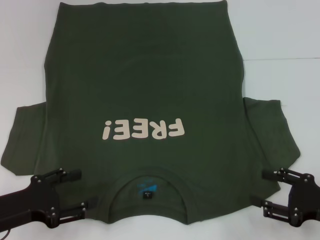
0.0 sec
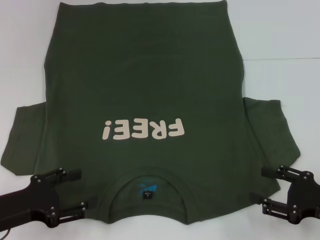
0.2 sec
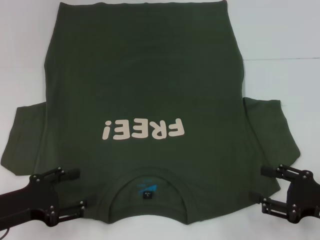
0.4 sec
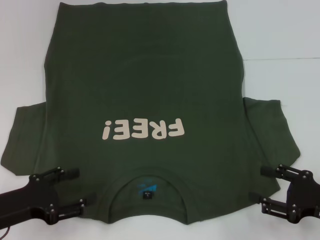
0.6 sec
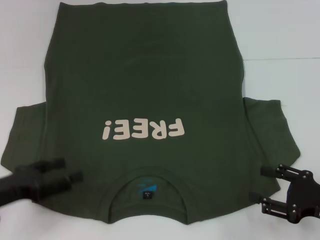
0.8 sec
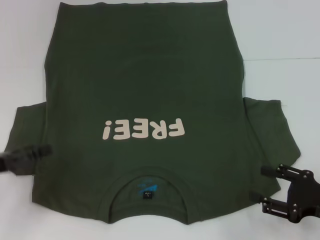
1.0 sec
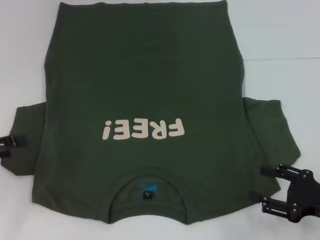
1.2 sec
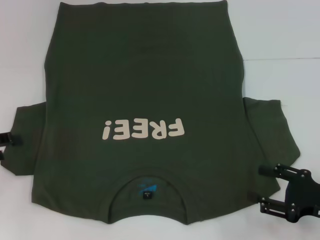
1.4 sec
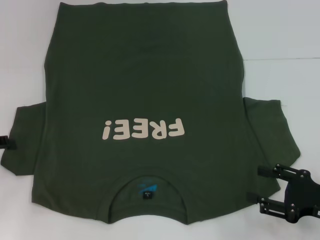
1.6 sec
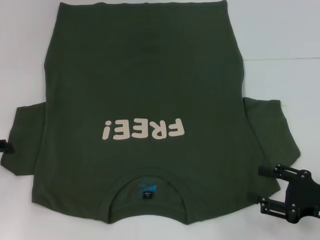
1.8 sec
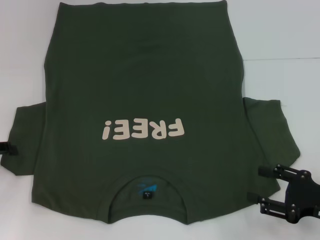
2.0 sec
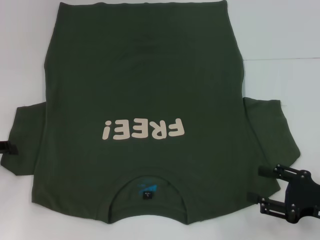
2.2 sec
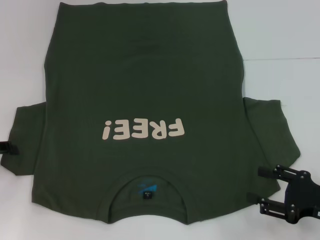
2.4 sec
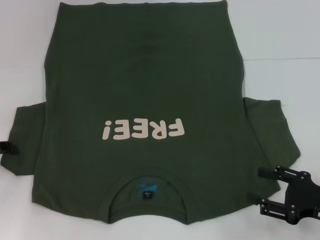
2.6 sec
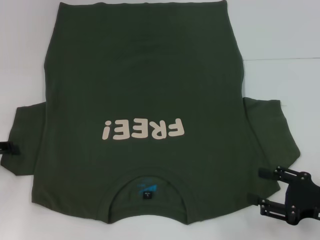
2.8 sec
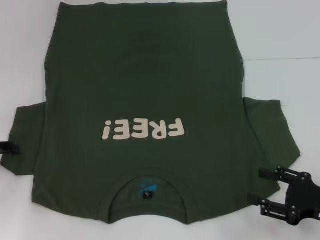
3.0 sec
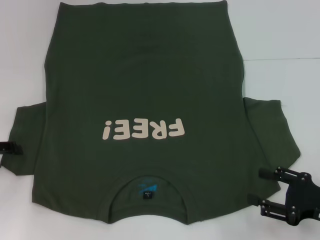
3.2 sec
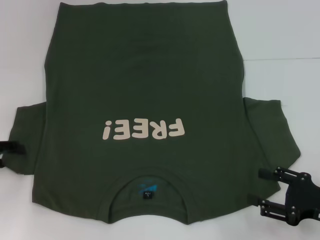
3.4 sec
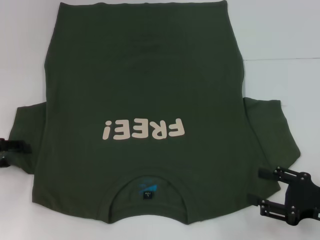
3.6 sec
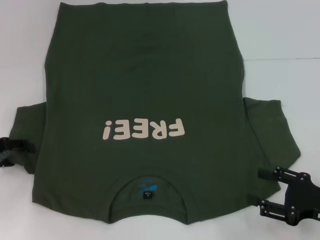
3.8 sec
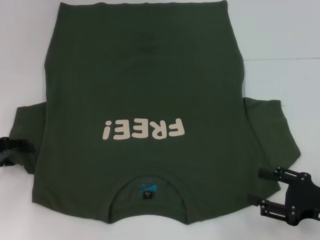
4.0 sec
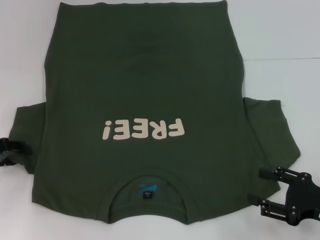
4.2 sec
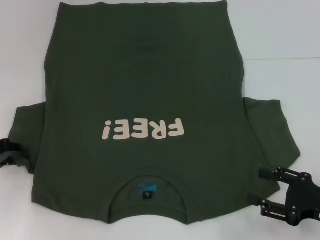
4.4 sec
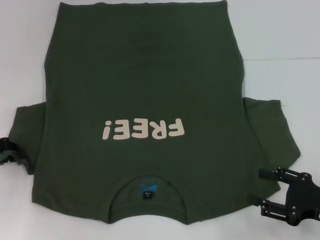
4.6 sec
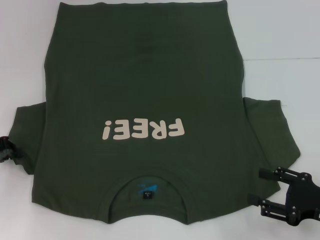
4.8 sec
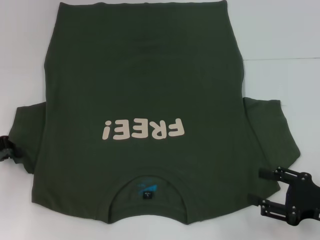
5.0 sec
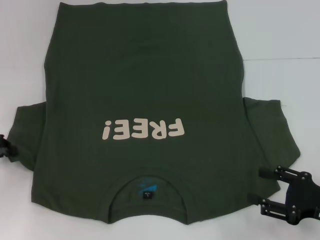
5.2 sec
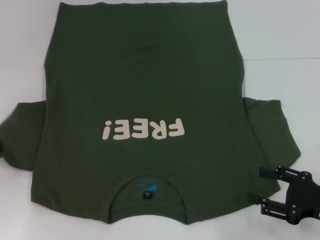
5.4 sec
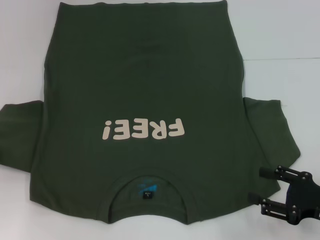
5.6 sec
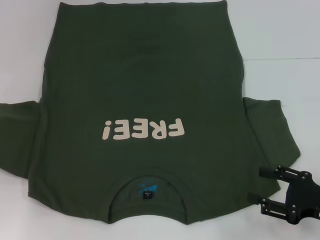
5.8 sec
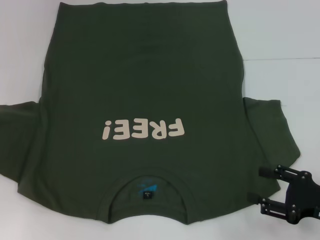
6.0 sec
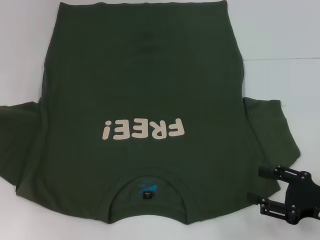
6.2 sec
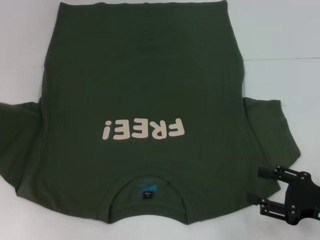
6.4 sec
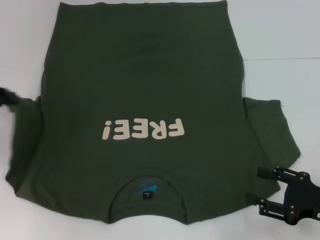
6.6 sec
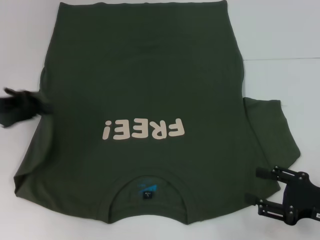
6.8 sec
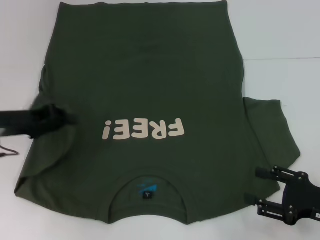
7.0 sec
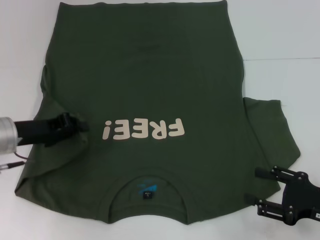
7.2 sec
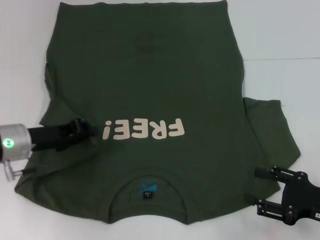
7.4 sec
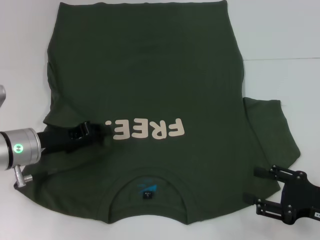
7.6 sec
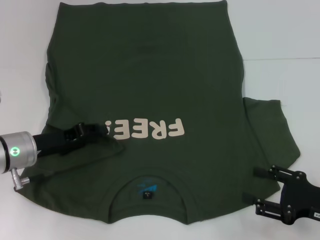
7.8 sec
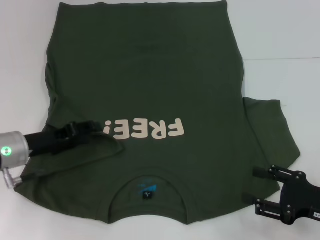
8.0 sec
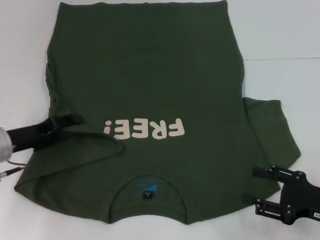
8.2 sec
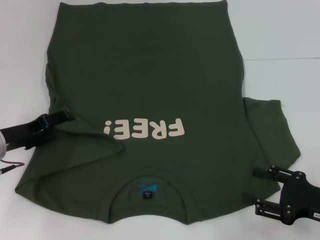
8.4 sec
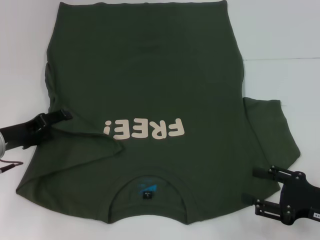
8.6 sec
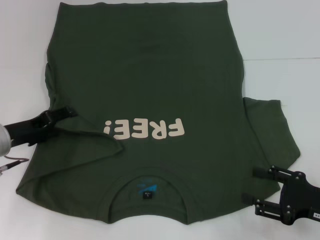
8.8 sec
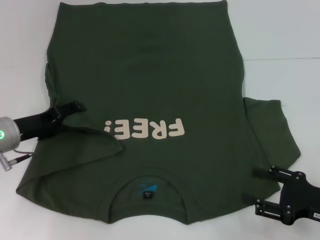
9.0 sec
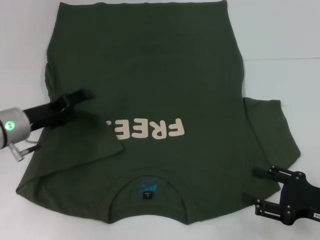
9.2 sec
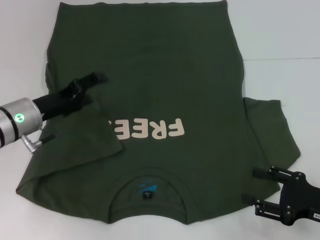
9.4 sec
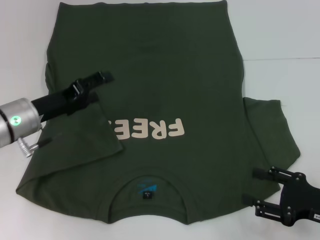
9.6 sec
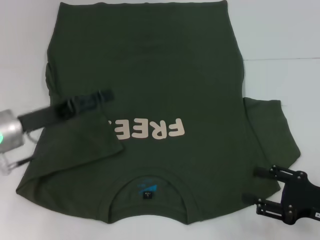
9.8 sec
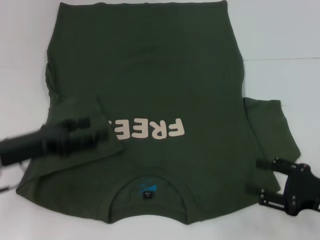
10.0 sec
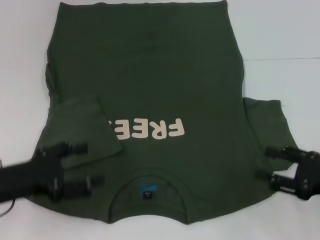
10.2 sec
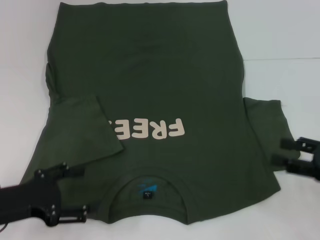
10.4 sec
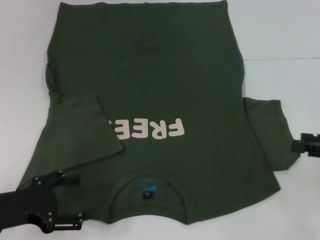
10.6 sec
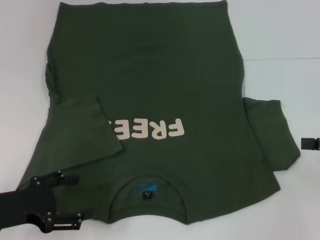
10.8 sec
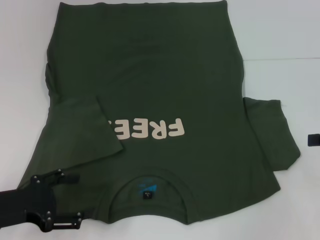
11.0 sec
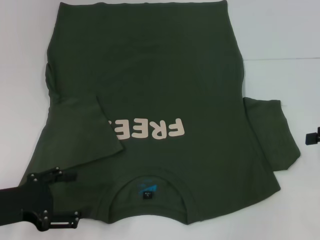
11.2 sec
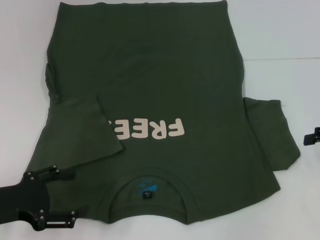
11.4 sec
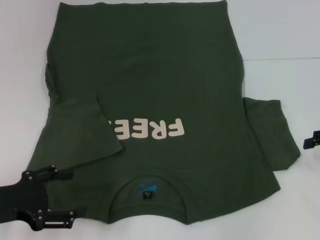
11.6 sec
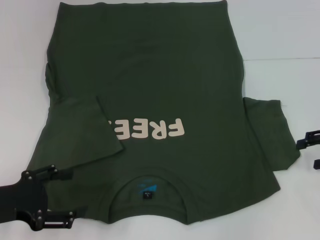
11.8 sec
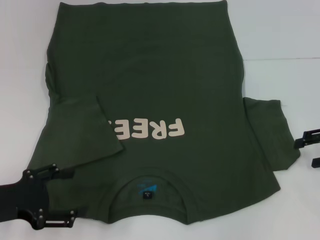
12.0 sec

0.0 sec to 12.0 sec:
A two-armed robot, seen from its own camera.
Step, 0.0 sec to 9.4 sec: Fold the bottom left sleeve with your left hand.
0.0 sec to 1.6 sec: The left gripper heads to the left, forward and upward, covering some 15 cm.
1.6 sec to 3.0 sec: The grippers stay close to where they were, moving slightly.
4.4 sec to 6.0 sec: The left gripper travels upward and to the left by some 10 cm, and closes.
6.0 sec to 7.6 sec: The left gripper is displaced to the right and downward by about 20 cm.
7.6 sec to 9.0 sec: The left gripper opens.
9.0 sec to 10.4 sec: The left gripper shifts approximately 10 cm backward, while the right gripper travels upward by roughly 5 cm.
10.4 sec to 12.0 sec: The right gripper heads forward, covering roughly 10 cm.

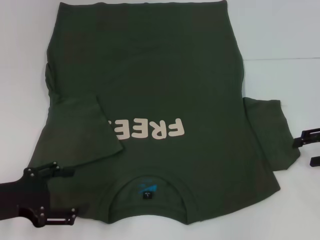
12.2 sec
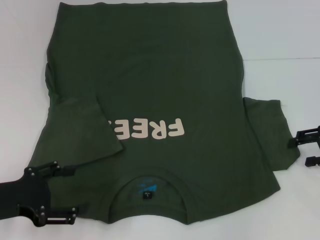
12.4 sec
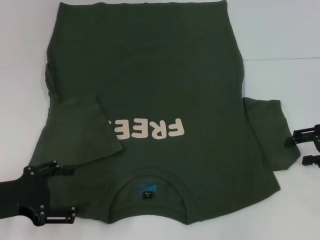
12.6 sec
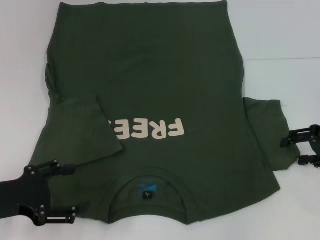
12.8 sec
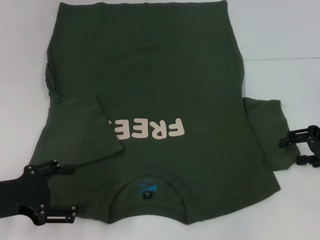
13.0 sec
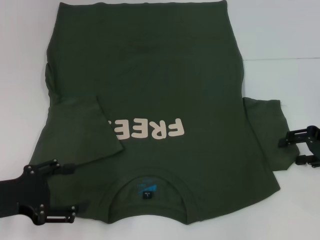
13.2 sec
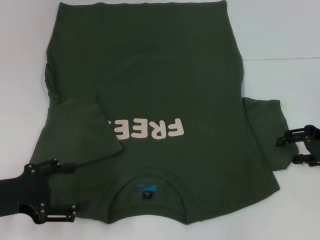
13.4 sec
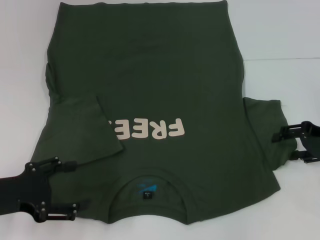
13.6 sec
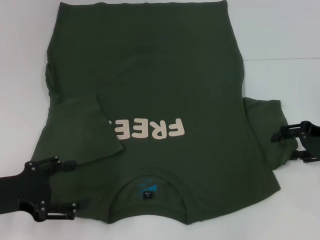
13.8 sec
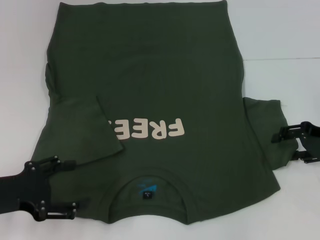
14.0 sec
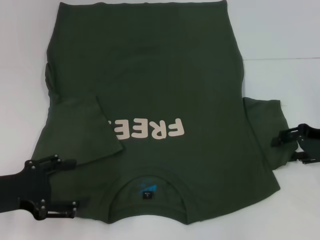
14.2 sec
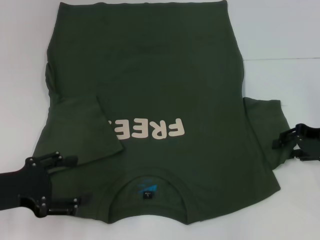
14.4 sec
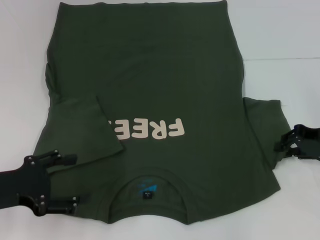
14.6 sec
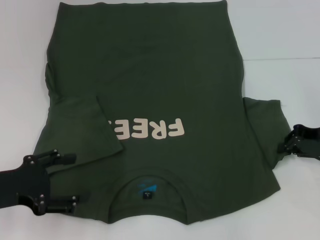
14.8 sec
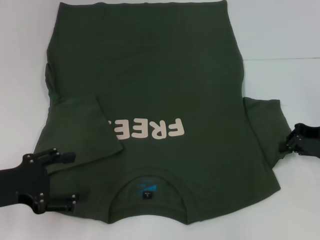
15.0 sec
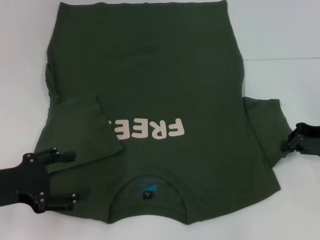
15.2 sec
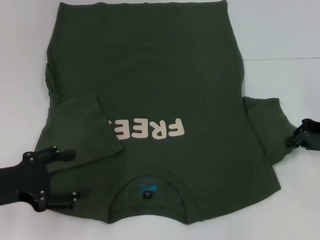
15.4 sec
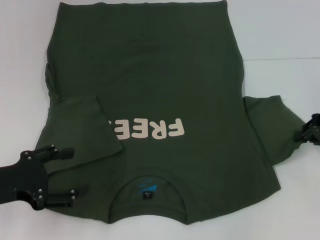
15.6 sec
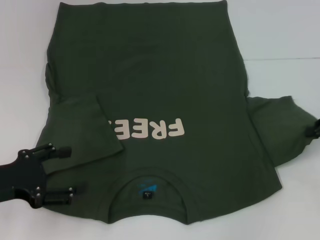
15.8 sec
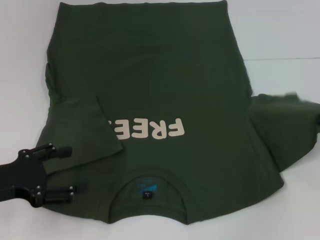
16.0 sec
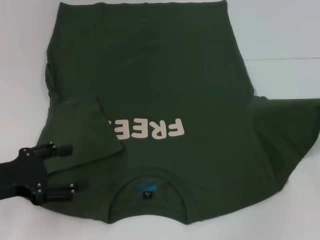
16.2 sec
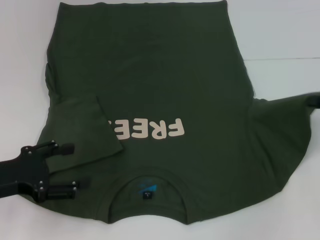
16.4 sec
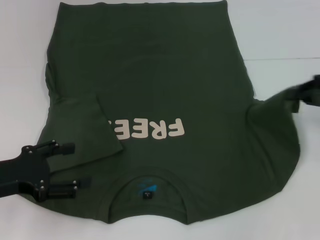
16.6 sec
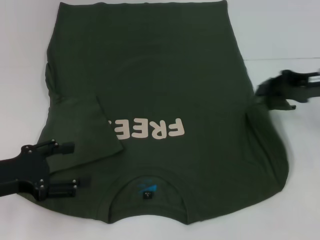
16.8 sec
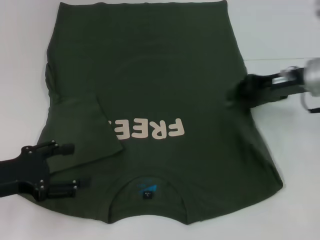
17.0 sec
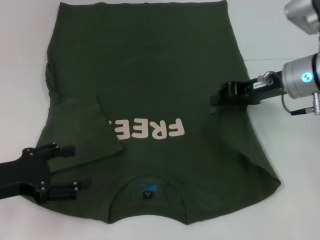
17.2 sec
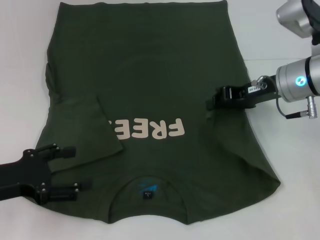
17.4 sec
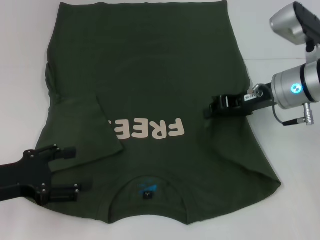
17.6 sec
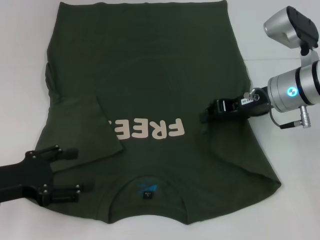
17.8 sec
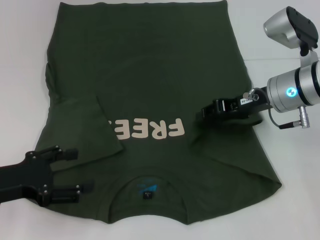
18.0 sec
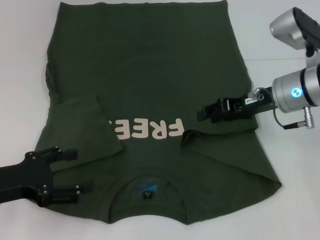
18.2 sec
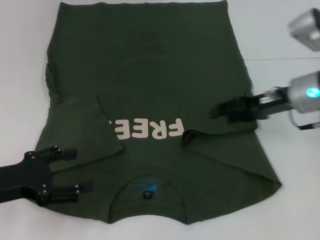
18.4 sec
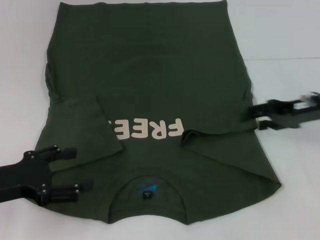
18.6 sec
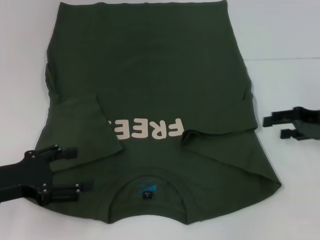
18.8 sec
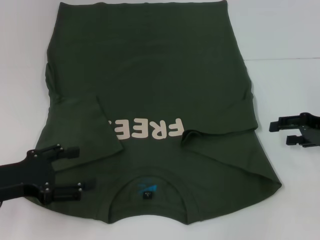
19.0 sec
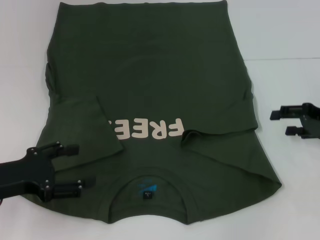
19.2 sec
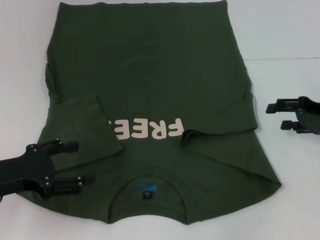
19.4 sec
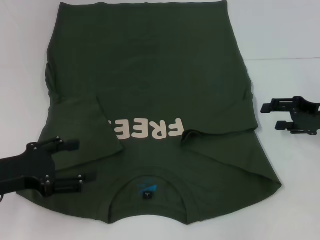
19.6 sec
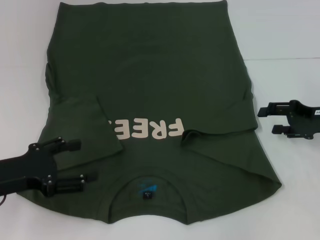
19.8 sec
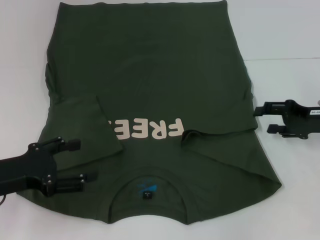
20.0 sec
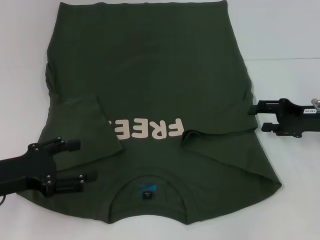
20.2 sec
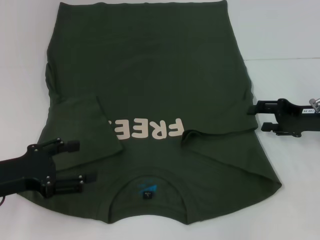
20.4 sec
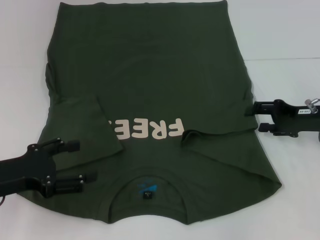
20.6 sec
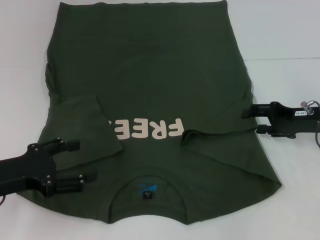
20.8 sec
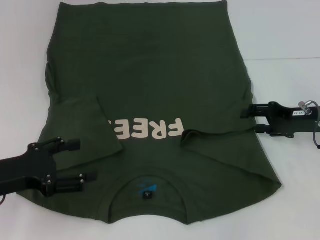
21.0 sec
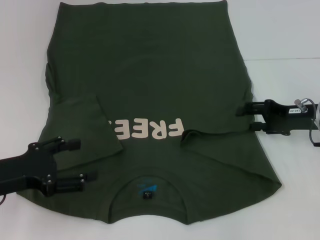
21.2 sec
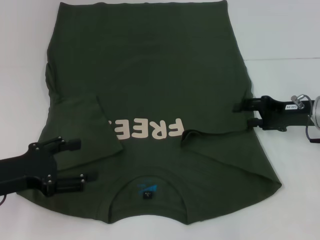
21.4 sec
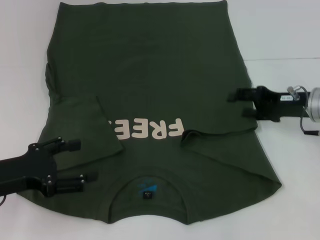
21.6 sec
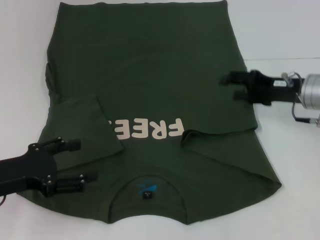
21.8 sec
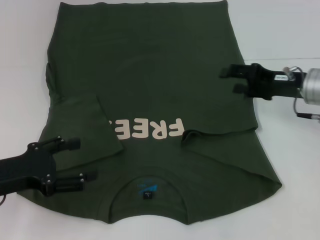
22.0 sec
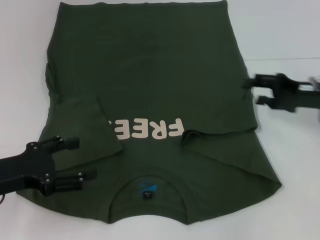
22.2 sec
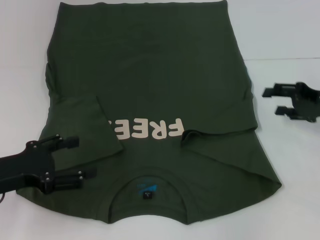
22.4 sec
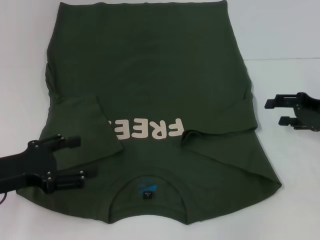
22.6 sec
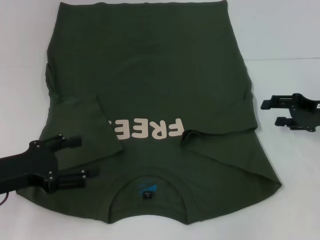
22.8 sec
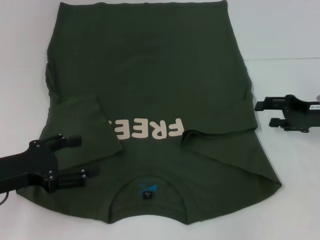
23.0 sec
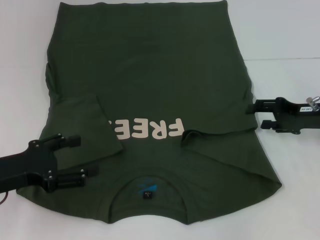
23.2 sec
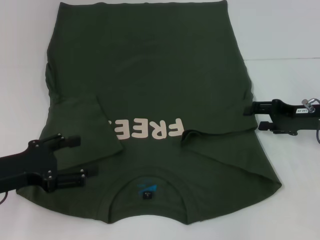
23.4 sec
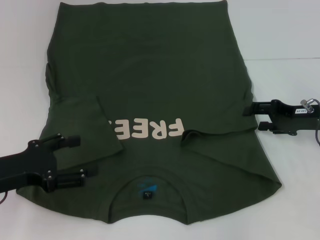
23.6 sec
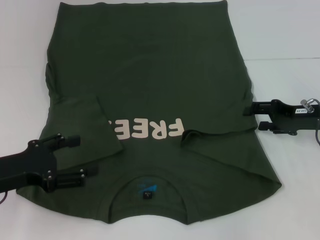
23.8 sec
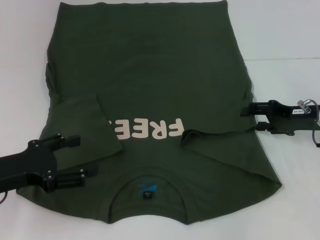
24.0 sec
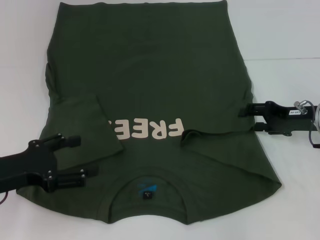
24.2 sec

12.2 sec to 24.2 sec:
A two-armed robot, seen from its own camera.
12.2 sec to 13.8 sec: The grippers stay close to where they were, moving slightly.
13.8 sec to 15.2 sec: The right gripper closes its fingers.
15.2 sec to 16.6 sec: The right gripper moves upward, approximately 5 cm.
16.6 sec to 18.2 sec: The right gripper goes roughly 15 cm to the left.
18.2 sec to 19.8 sec: The right gripper heads to the right, covering some 10 cm, and opens up.
19.8 sec to 21.2 sec: The grippers move only a little.
21.2 sec to 22.6 sec: There are only small adjustments of the grippers.
22.6 sec to 24.2 sec: The right gripper shifts by some 5 cm.
